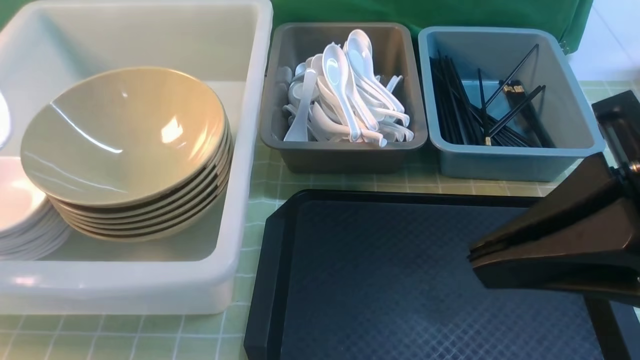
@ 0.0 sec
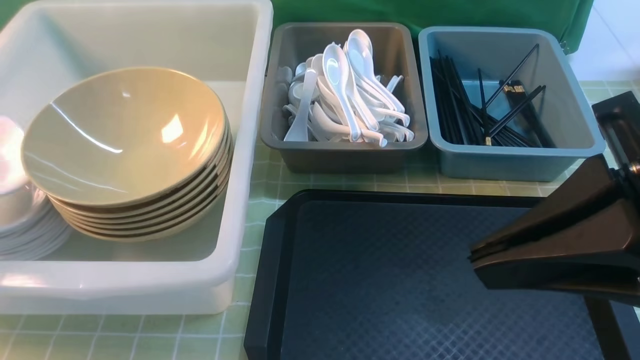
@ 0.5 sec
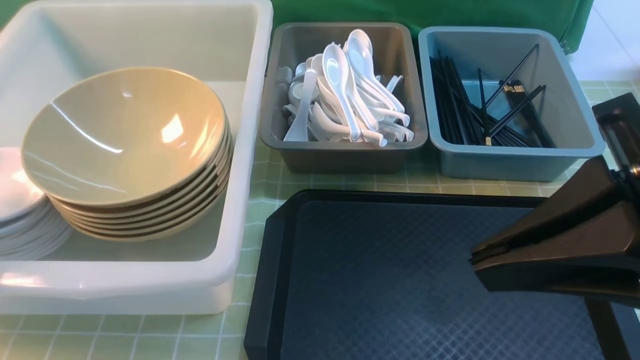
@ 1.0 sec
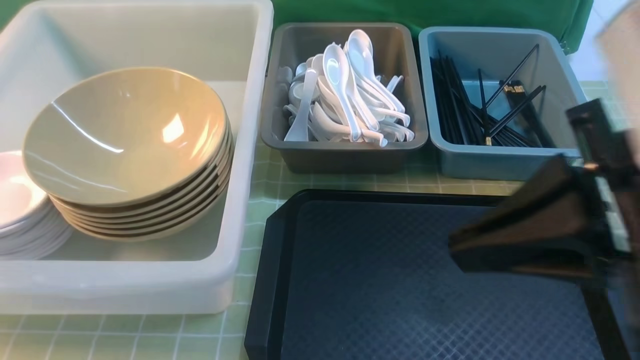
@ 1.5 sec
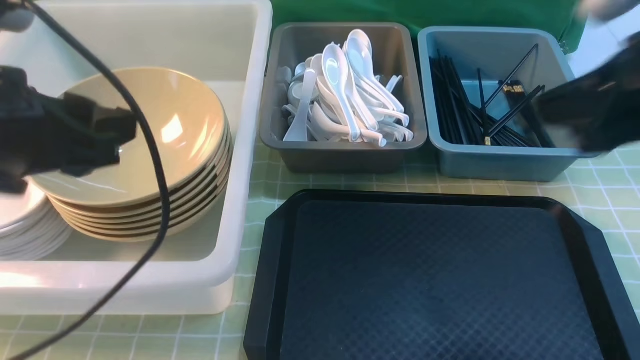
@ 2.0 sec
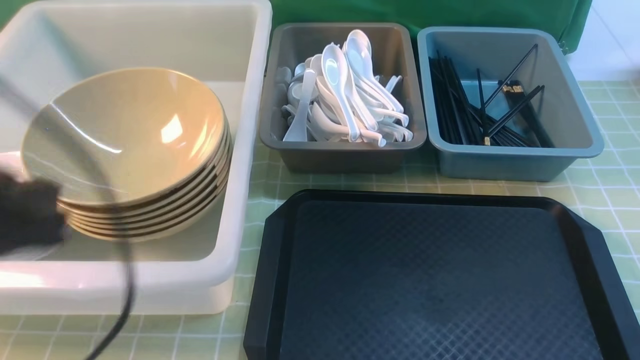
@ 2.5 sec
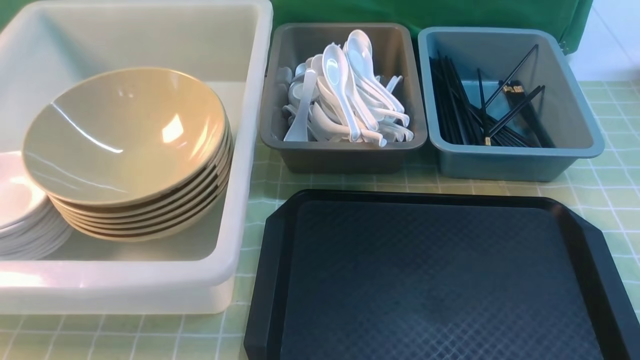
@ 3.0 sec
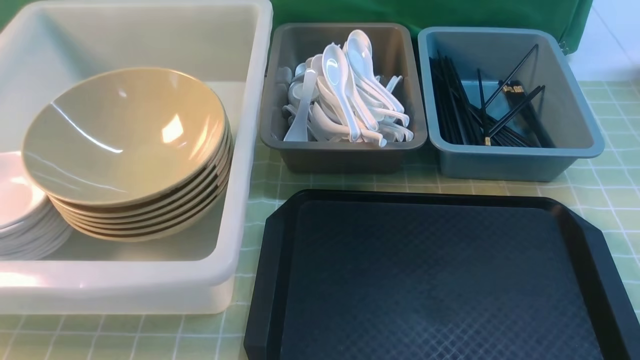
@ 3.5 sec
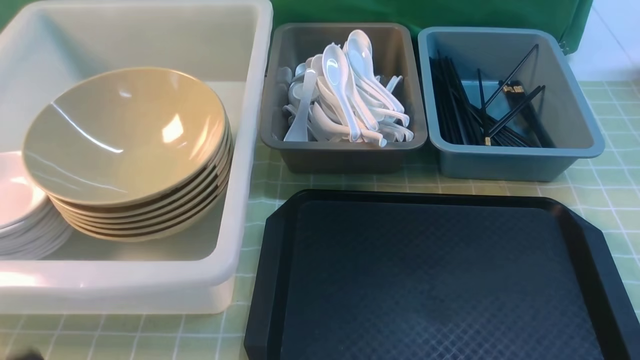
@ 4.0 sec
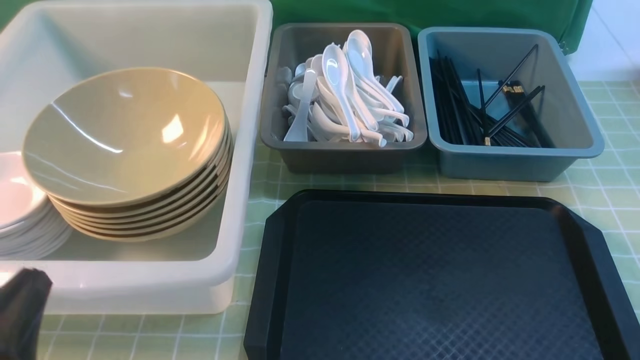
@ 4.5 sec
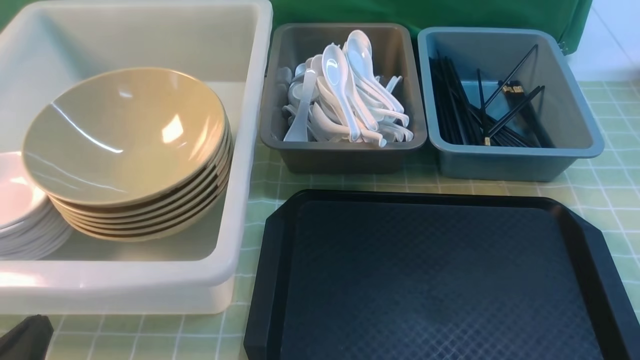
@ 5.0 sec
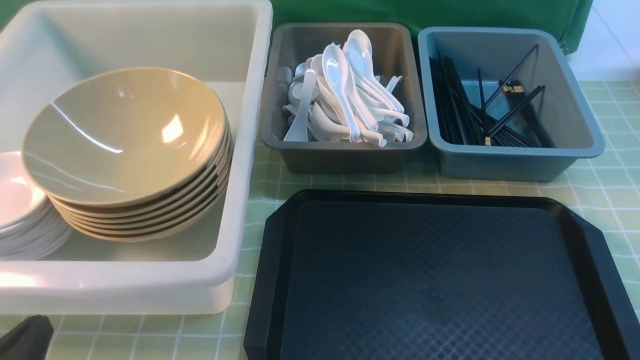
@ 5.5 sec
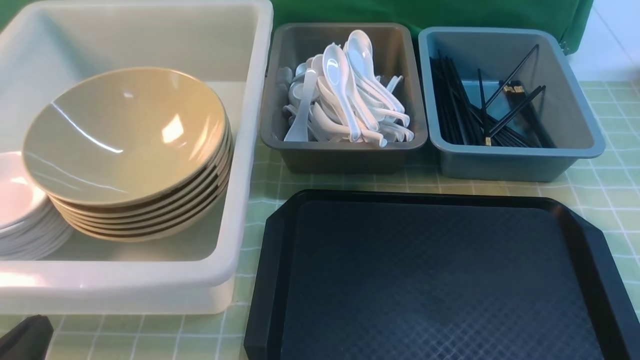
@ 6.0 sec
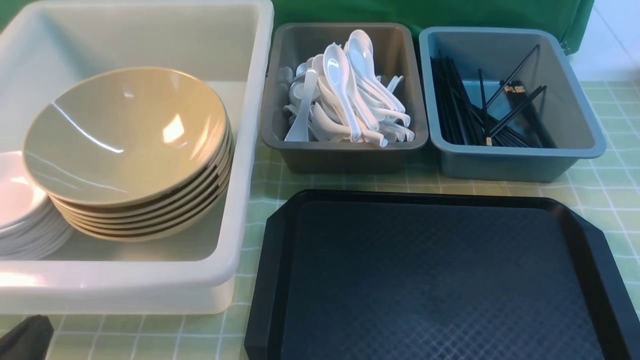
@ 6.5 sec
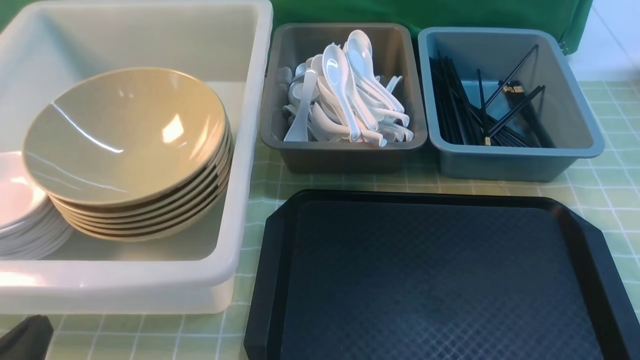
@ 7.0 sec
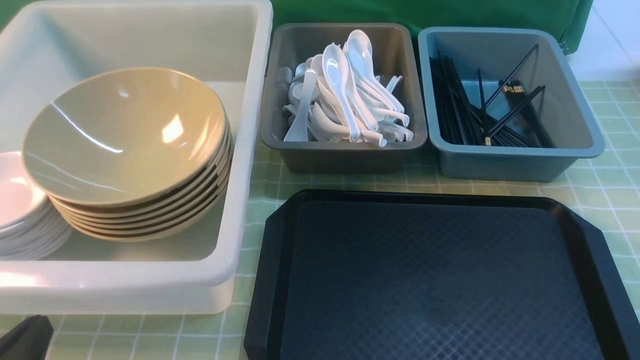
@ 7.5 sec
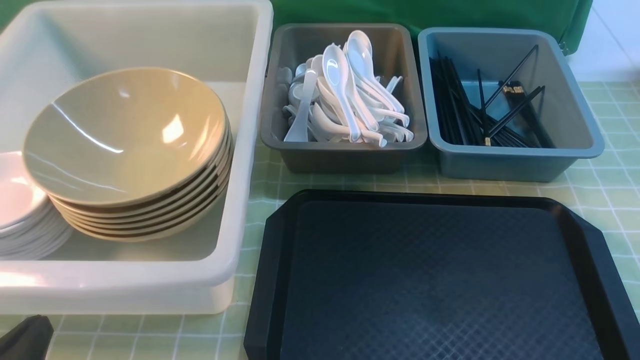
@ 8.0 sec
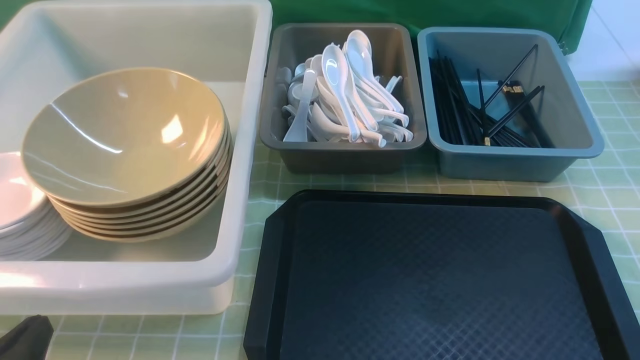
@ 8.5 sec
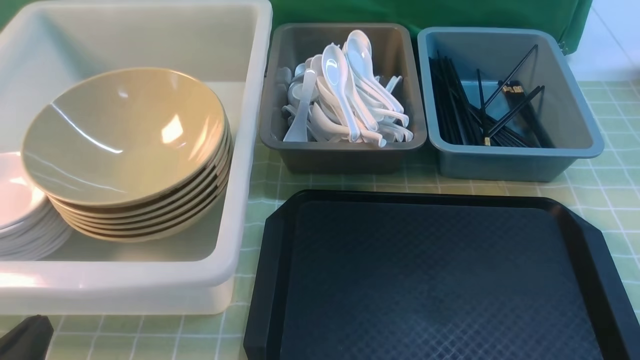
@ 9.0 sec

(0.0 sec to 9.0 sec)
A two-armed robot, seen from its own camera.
Task of the whole recording: on green table put chopsticks spoon bowls plates into blue grey white boxes.
0.0 sec - 2.0 sec: The left gripper shifts roughly 20 cm to the right, and opens and closes again. The right gripper goes roughly 10 cm forward and to the right.
2.0 sec - 4.5 sec: The left gripper heads downward and backward, covering about 20 cm, while the right gripper travels backward and downward by about 20 cm.
7.0 sec - 9.0 sec: The two grippers keep their place.
